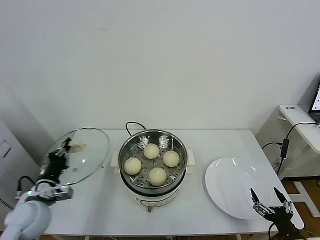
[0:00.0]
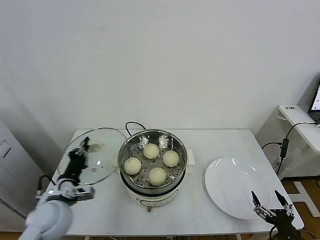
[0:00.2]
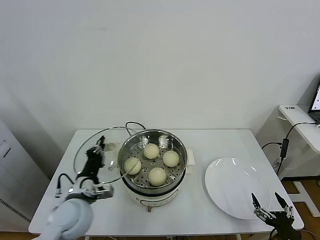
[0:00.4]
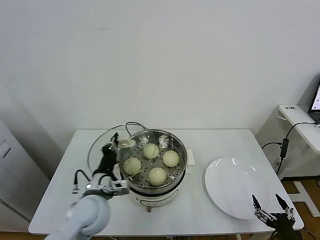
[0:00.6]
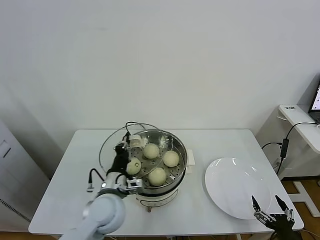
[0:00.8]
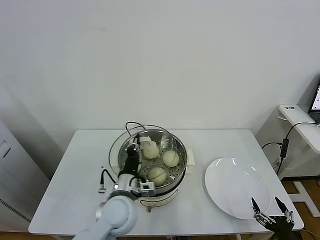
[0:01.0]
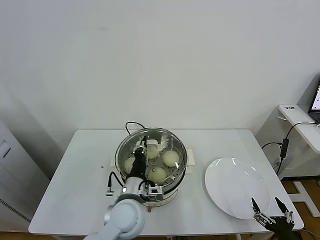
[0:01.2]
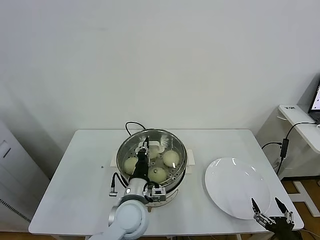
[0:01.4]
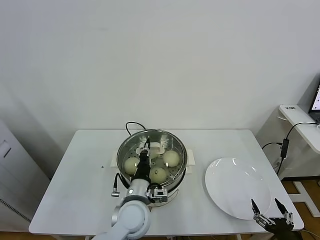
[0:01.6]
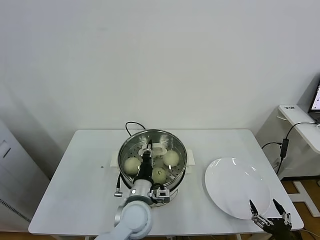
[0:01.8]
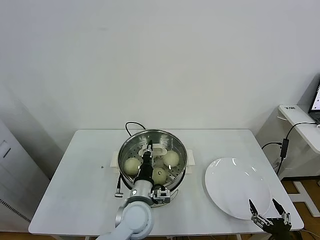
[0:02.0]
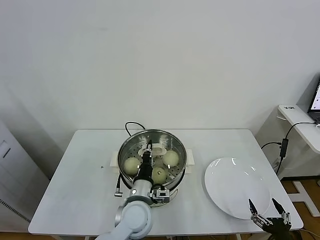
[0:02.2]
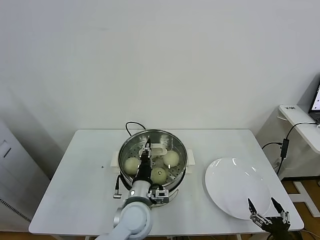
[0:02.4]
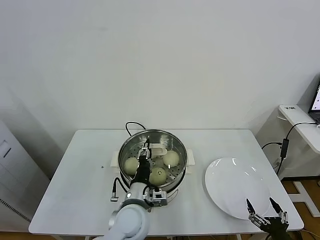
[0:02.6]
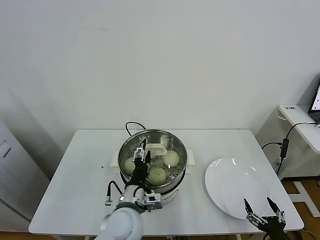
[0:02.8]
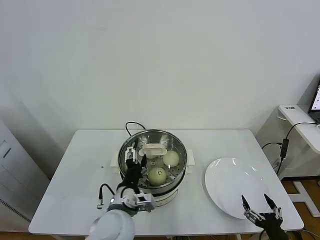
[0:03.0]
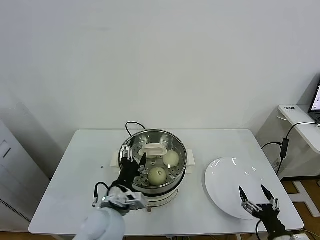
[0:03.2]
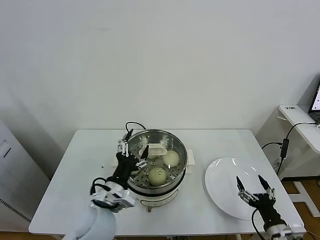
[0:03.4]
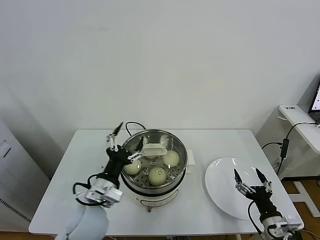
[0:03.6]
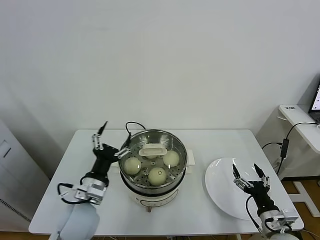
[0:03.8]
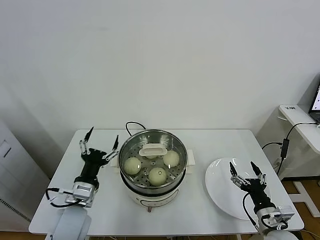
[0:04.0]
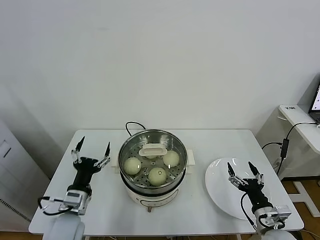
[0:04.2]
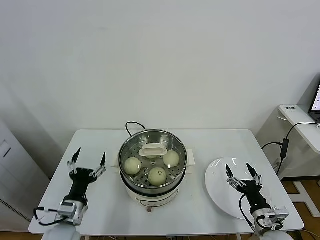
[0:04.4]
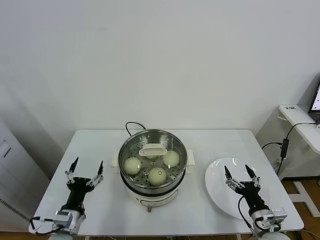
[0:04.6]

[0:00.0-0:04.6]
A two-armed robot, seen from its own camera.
Task of the whole recording: take steamed baozi put them in steamer.
Step, 0:00.0 to 0:03.0: Place the pot lid on the steamer with left gripper.
0:00.0 to 0:01.6: The left gripper heads to the right, covering some 30 cm.
0:01.6 to 0:03.0: The left gripper moves about 5 cm, and opens.
0:03.0 to 0:04.6: The right gripper travels forward by approximately 10 cm. The left gripper goes some 20 cm to the left and downward.

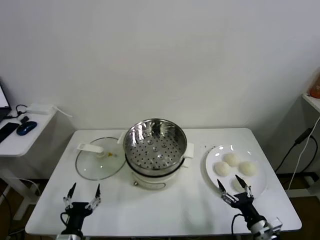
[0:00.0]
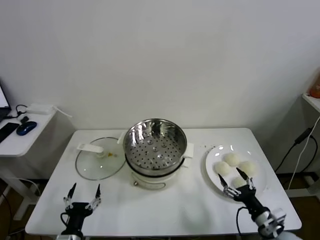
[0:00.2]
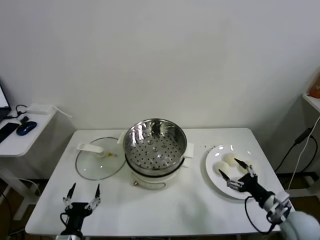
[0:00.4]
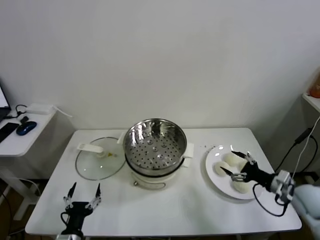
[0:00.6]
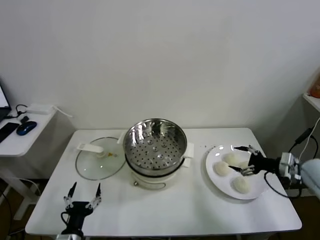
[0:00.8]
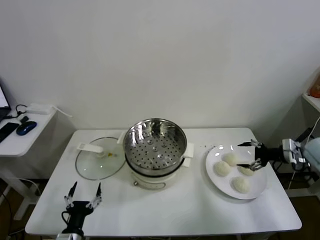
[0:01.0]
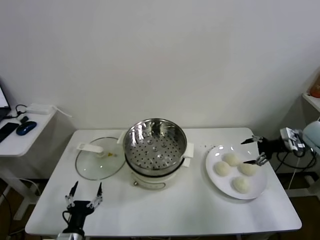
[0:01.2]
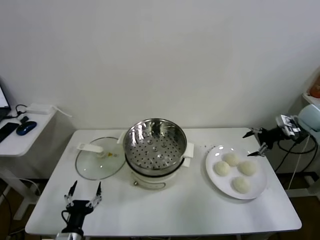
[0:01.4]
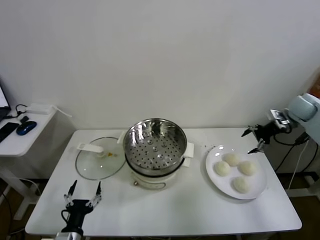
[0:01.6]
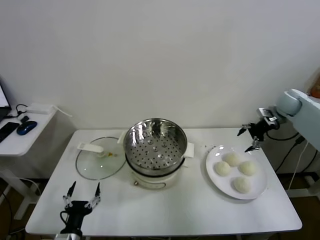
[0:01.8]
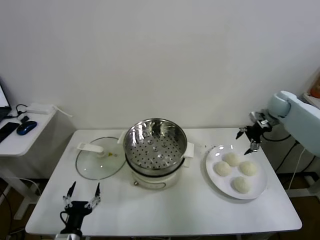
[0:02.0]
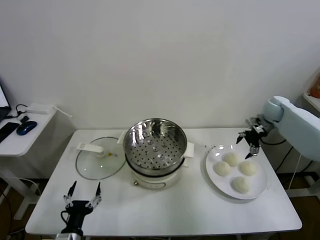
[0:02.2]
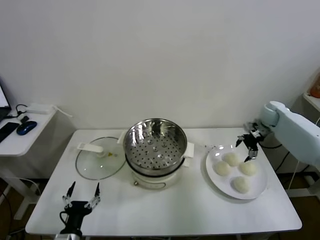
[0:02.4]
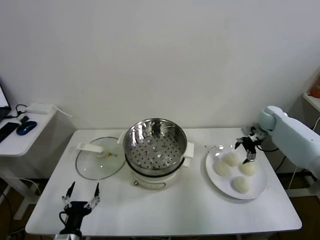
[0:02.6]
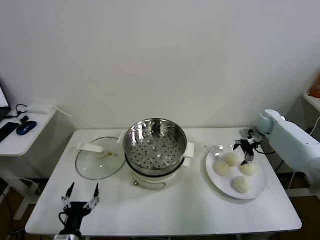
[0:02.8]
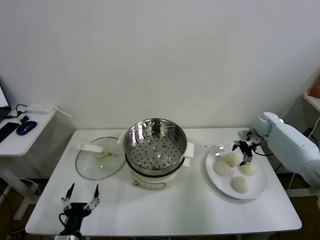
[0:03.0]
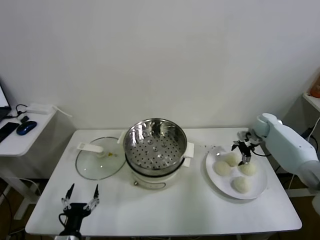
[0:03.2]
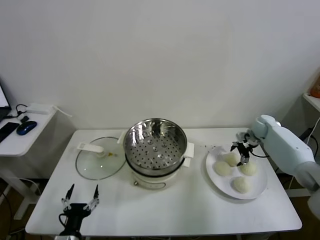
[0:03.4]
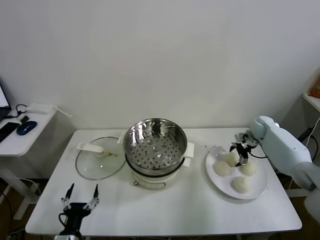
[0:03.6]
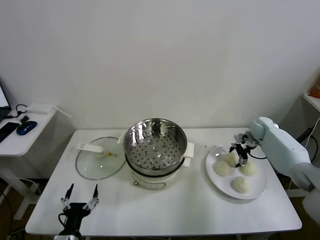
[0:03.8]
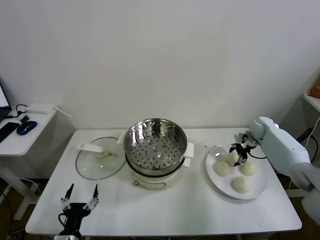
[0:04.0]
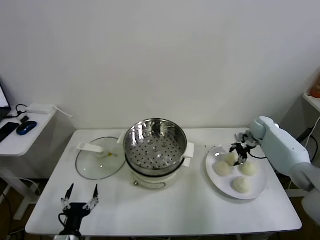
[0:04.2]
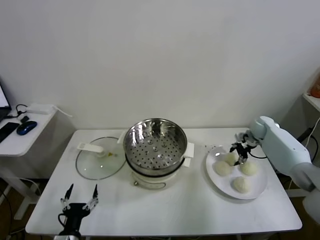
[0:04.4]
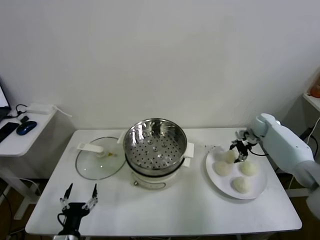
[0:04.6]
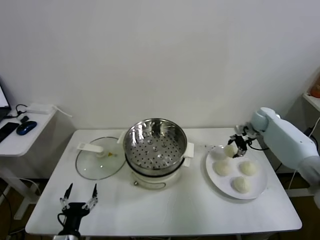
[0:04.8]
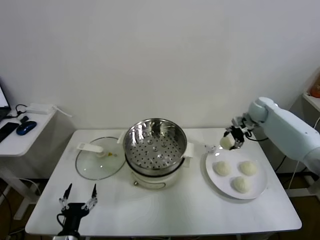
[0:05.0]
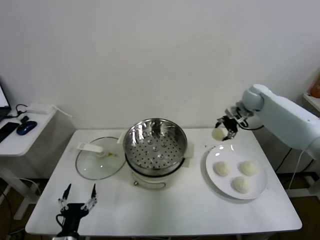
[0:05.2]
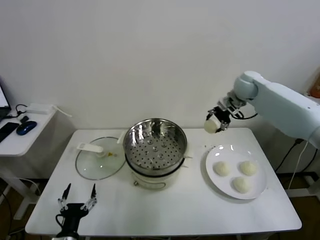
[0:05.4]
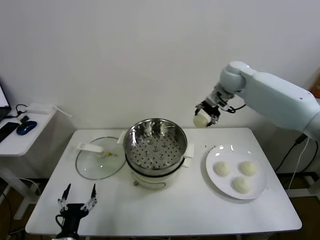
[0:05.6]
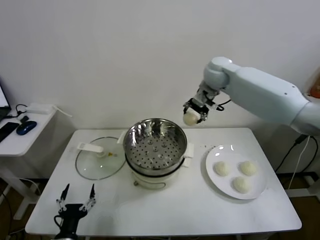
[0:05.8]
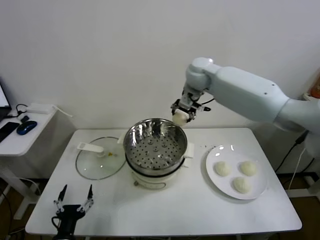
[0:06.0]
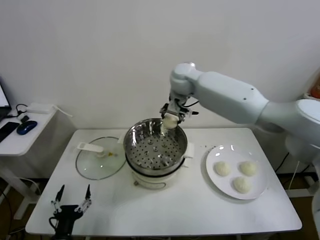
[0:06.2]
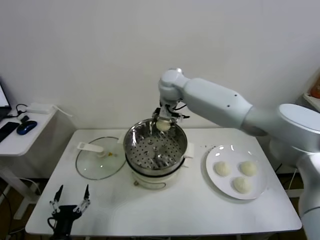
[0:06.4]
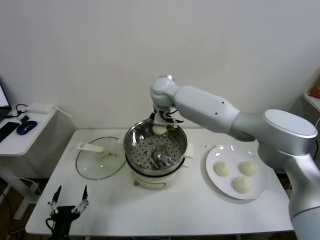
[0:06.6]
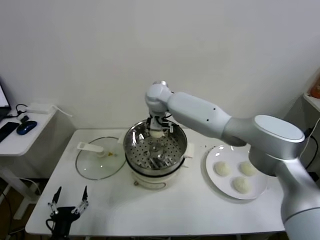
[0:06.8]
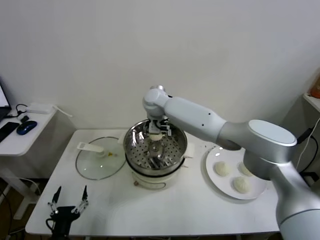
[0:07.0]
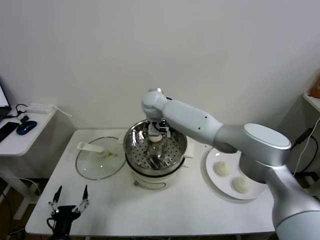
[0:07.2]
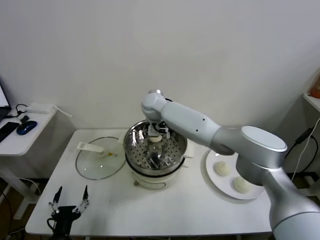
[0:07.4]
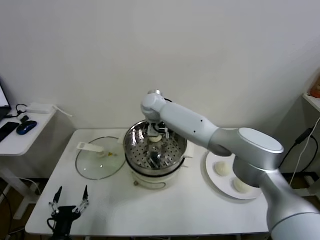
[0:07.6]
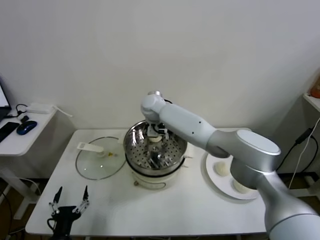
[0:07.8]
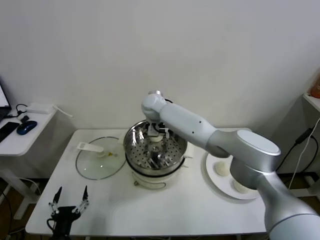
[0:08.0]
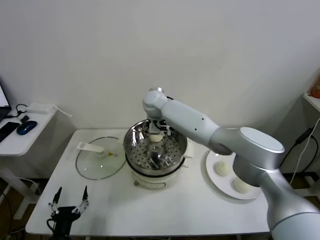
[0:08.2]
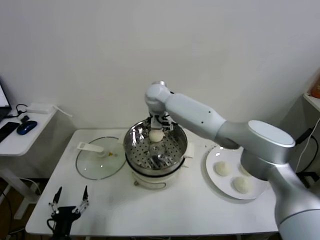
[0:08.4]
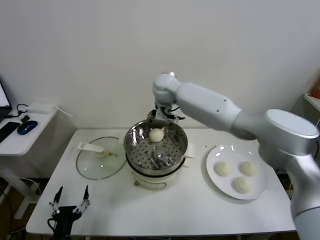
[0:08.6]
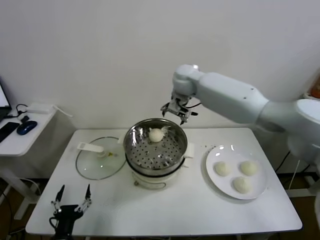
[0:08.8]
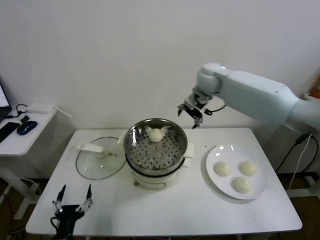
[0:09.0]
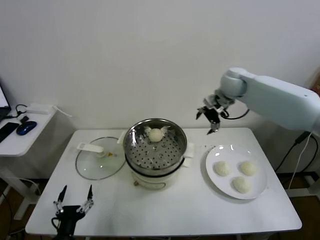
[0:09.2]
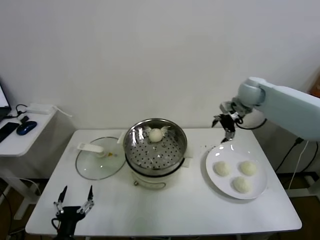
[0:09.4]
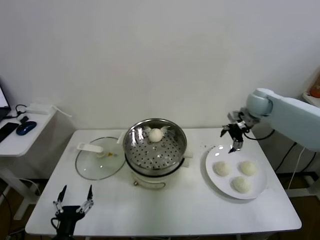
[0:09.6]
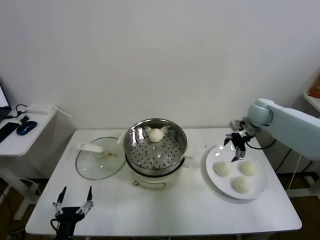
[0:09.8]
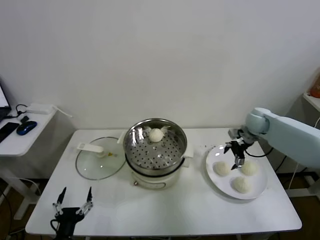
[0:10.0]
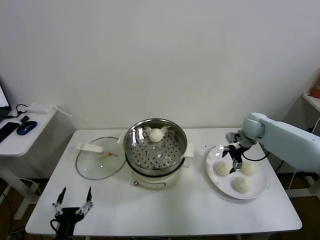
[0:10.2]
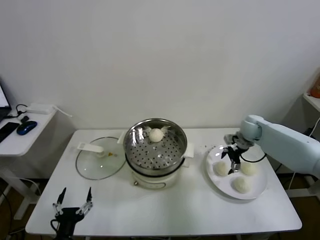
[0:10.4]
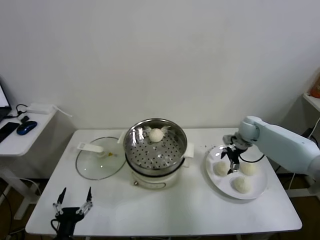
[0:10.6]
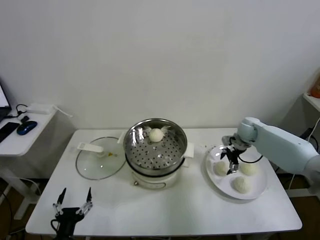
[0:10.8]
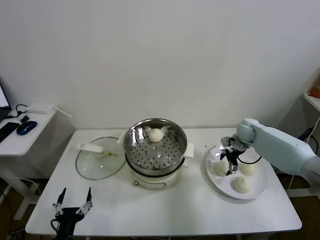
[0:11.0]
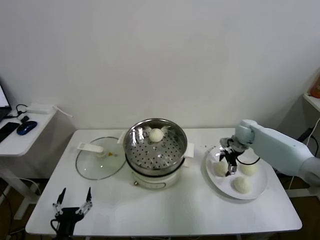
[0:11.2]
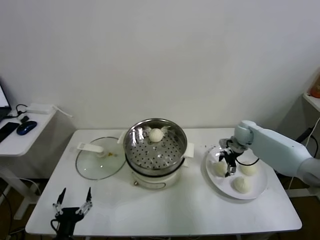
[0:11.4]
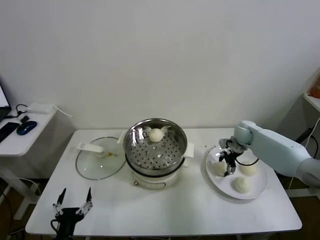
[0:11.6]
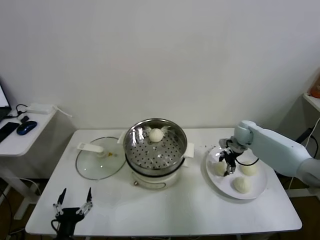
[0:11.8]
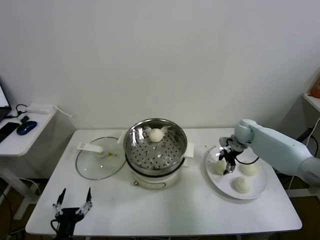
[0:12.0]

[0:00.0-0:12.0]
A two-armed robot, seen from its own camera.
Task of the whole recording: take steamed baozi put them in steamer.
Step, 0:00.0 to 0:04.0: Grasp the baozi in the plate with right gripper.
Step, 0:04.4 to 0:08.2: Place the baozi on the steamer with right gripper.
Step, 0:08.4 to 0:11.8: Grasp the baozi in the plate with right gripper.
0:01.6 to 0:03.0: The right gripper goes approximately 15 cm downward.
0:03.0 to 0:04.4: The right gripper closes up.
0:04.4 to 0:06.0: The right gripper moves to the left and upward, some 40 cm.
0:06.0 to 0:07.6: The right gripper moves to the left and downward, some 15 cm.
0:07.6 to 0:09.0: The right gripper travels to the right and upward by some 25 cm, and opens its fingers.
0:09.0 to 0:10.4: The right gripper shifts roughly 25 cm downward and to the right.
0:10.4 to 0:12.0: The right gripper closes its fingers.

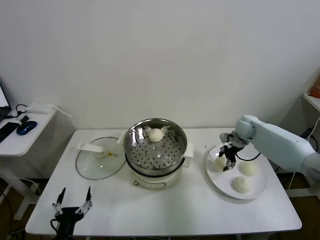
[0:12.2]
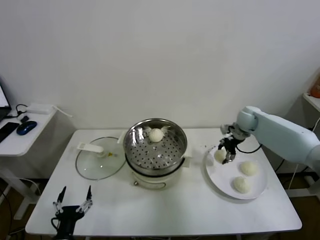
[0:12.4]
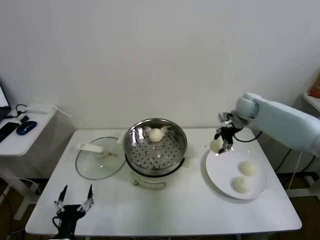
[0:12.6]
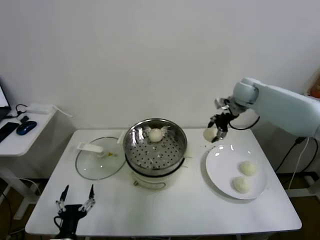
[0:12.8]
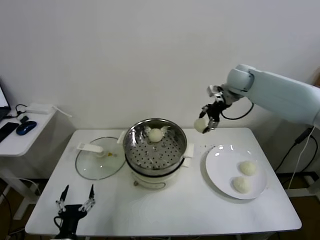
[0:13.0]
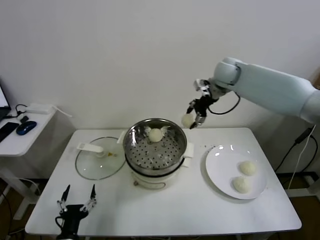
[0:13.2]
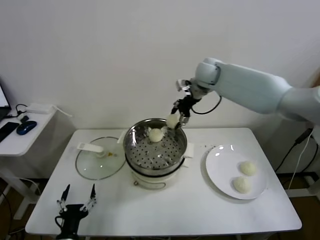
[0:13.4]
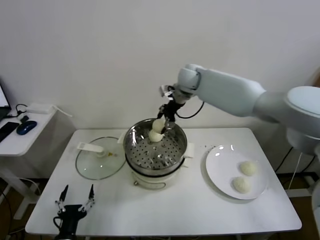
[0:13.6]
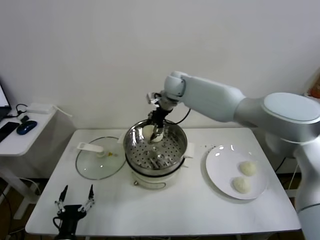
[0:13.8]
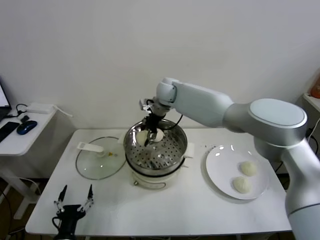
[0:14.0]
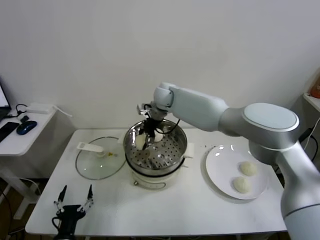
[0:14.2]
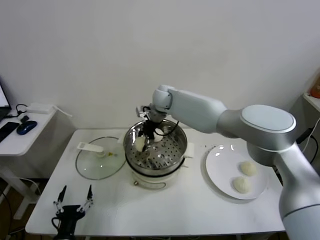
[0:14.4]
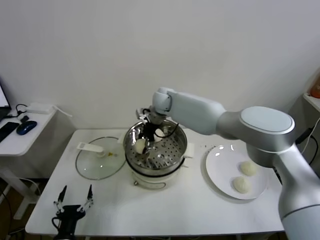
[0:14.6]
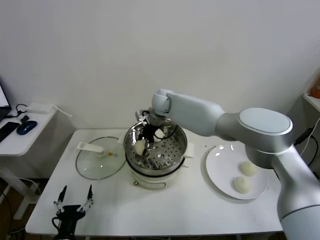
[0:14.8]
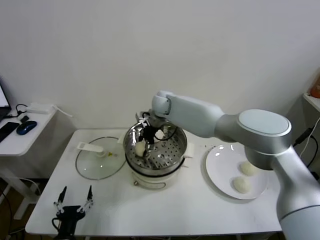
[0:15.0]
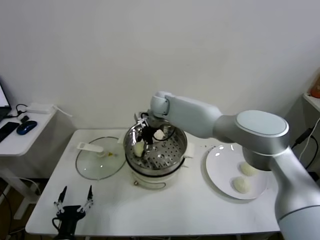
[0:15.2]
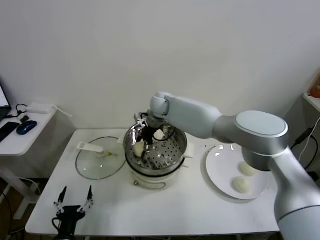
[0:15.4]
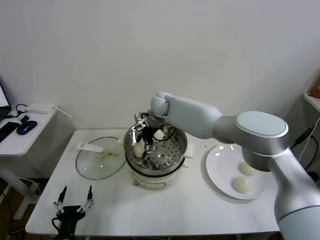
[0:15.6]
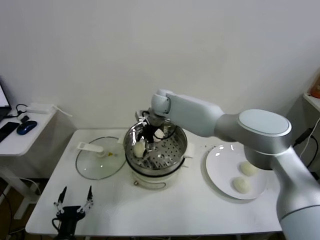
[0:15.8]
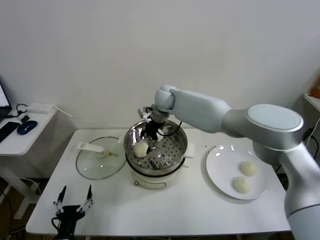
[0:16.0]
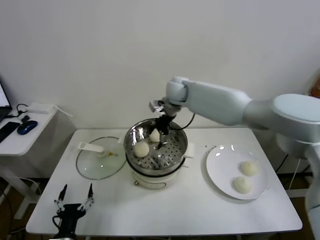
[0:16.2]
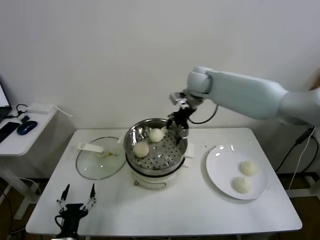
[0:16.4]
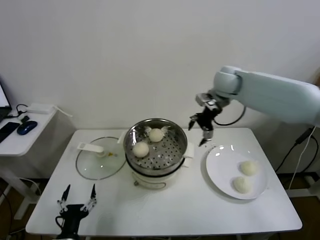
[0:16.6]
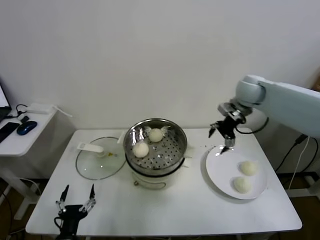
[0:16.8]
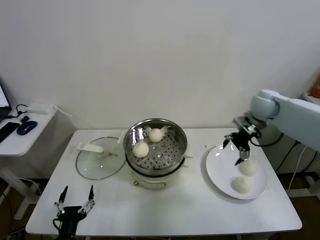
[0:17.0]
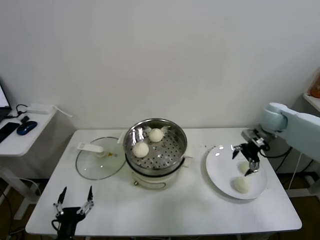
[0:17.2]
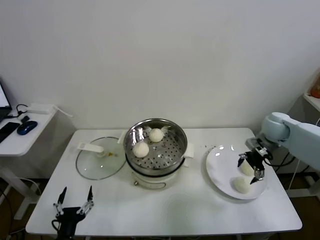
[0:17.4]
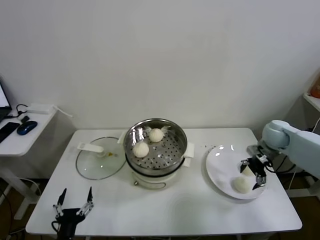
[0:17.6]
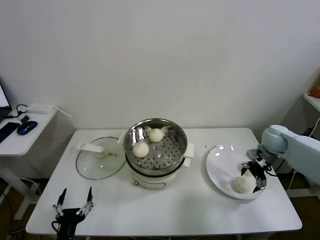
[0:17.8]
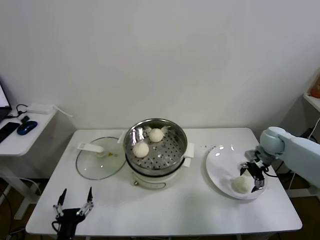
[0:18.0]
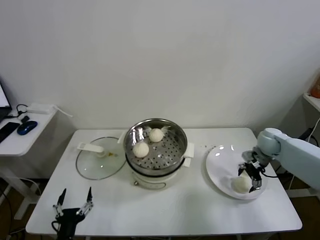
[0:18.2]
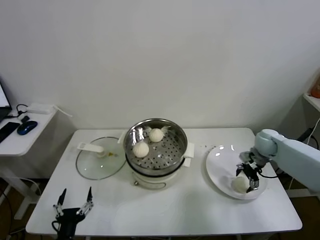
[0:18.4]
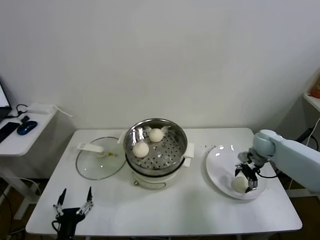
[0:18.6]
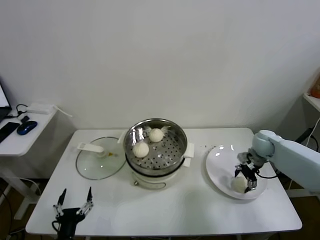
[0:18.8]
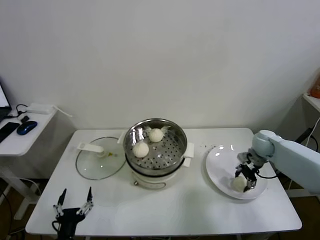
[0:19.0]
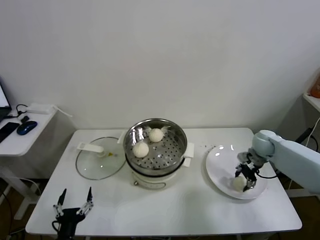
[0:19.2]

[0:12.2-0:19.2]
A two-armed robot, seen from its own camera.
Task of the whole recording: take steamed baozi put them in steamer.
Step, 0:12.2 to 0:15.8: Place the baozi on the steamer with right gripper.
Step, 0:16.0 to 0:19.2: Grasp the baozi in the plate with right gripper.
0:12.2 to 0:13.6: The right gripper moves to the left and upward, some 30 cm.
0:13.6 to 0:15.0: The right gripper travels downward and to the left by approximately 10 cm.
0:15.0 to 0:16.4: The right gripper is displaced to the right and upward by roughly 20 cm, and opens up.
0:16.4 to 0:17.8: The right gripper shifts about 35 cm to the right and downward.
0:17.8 to 0:19.2: The right gripper closes up.
